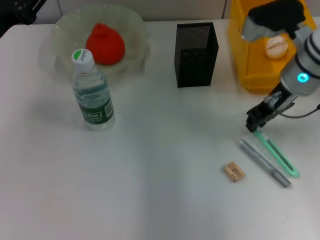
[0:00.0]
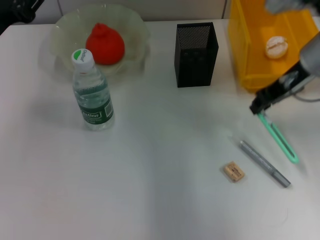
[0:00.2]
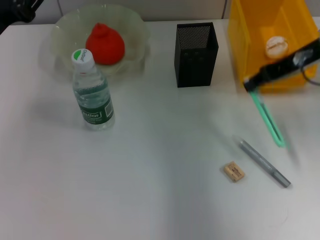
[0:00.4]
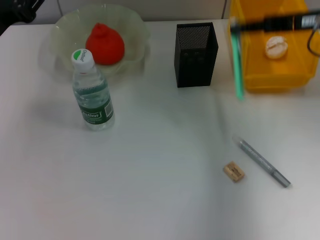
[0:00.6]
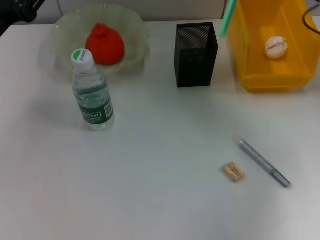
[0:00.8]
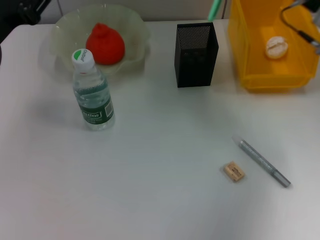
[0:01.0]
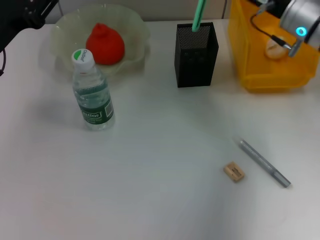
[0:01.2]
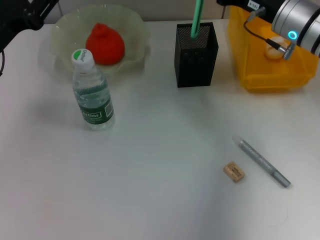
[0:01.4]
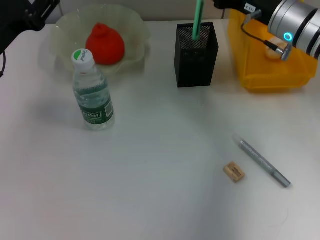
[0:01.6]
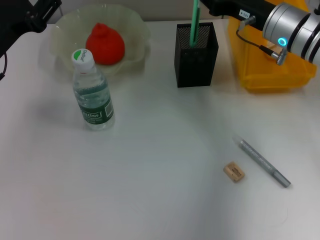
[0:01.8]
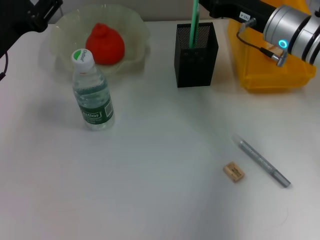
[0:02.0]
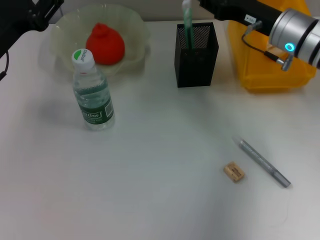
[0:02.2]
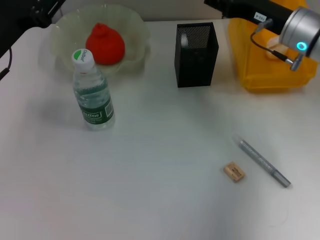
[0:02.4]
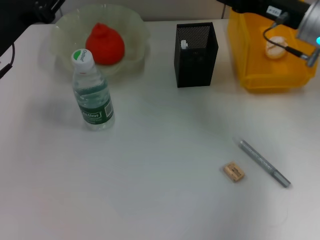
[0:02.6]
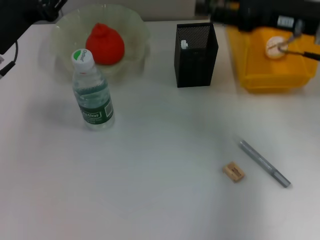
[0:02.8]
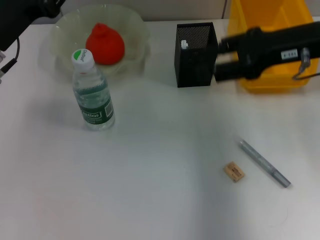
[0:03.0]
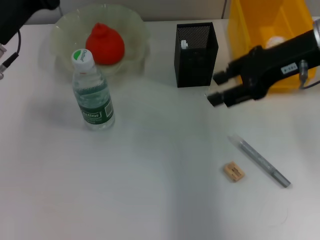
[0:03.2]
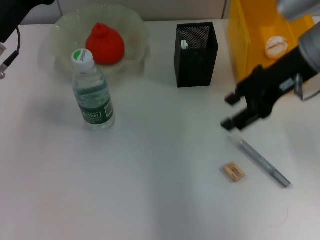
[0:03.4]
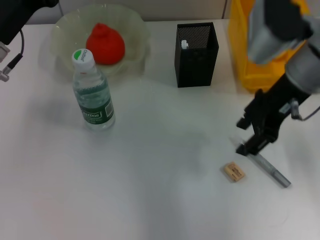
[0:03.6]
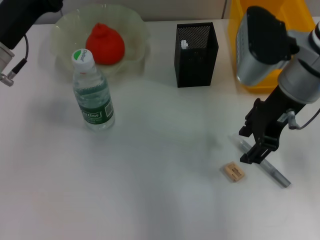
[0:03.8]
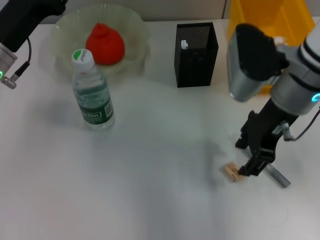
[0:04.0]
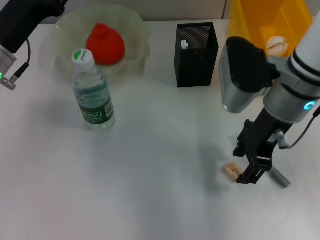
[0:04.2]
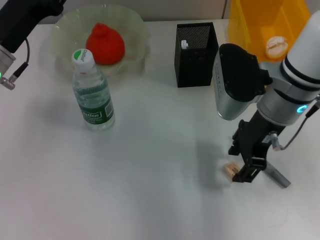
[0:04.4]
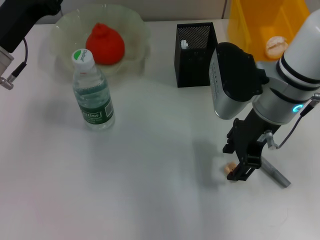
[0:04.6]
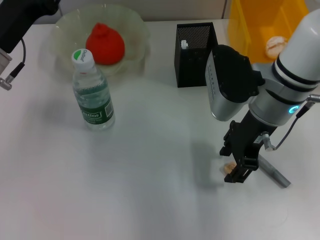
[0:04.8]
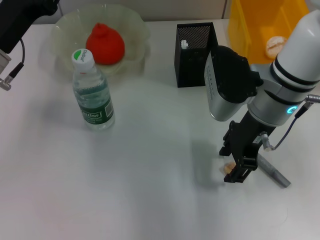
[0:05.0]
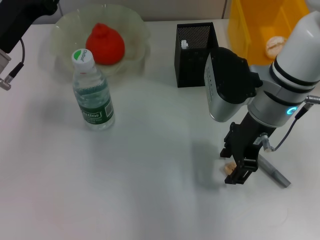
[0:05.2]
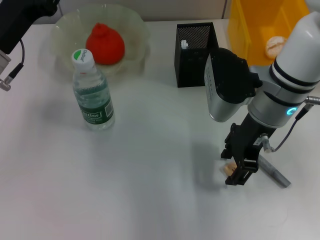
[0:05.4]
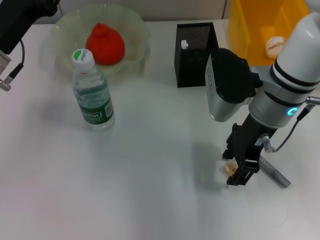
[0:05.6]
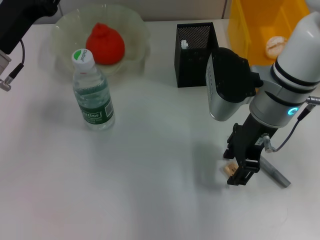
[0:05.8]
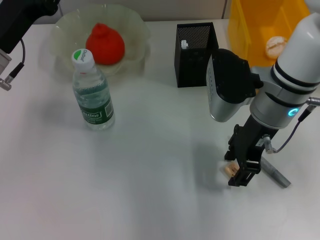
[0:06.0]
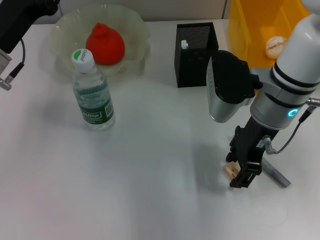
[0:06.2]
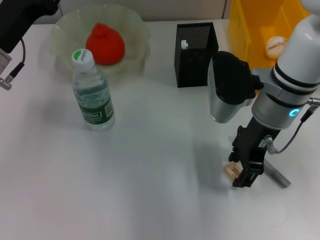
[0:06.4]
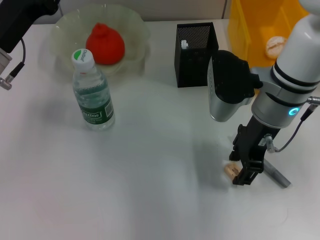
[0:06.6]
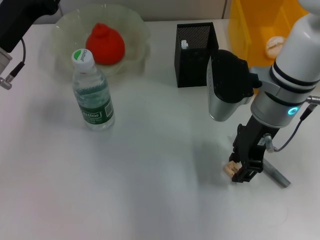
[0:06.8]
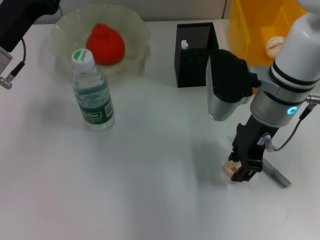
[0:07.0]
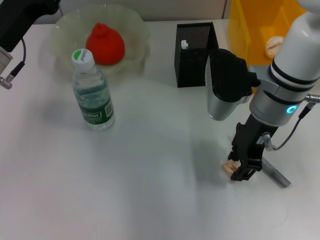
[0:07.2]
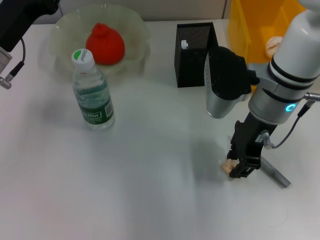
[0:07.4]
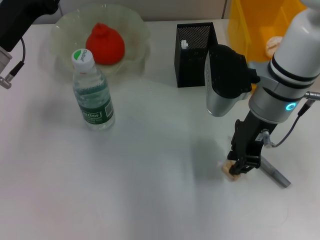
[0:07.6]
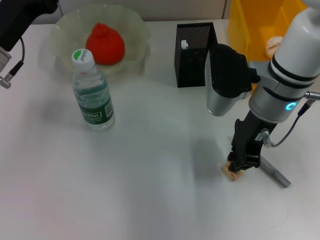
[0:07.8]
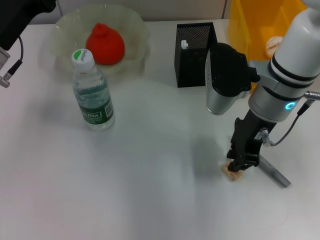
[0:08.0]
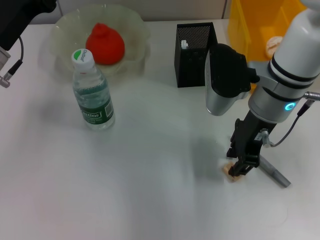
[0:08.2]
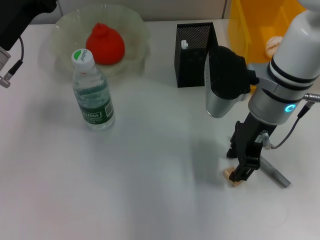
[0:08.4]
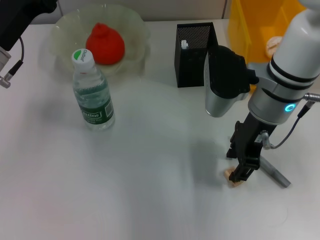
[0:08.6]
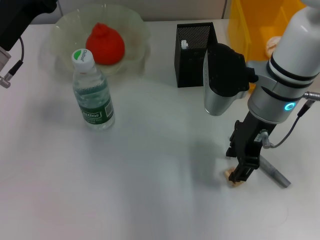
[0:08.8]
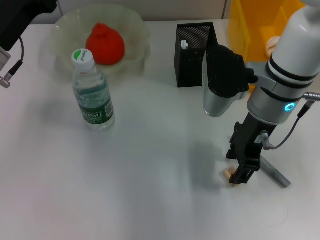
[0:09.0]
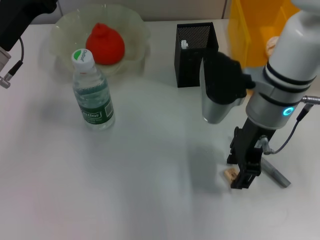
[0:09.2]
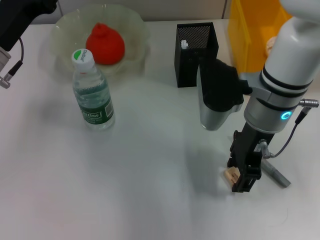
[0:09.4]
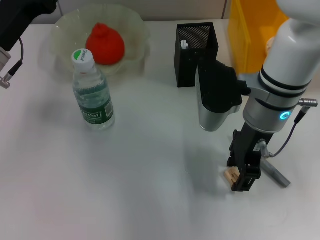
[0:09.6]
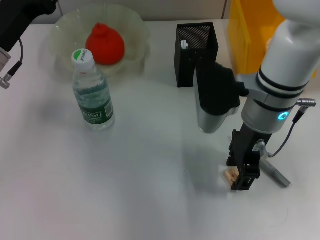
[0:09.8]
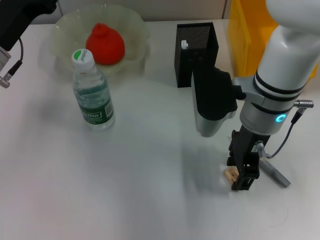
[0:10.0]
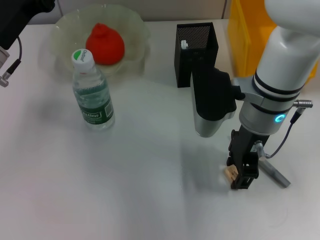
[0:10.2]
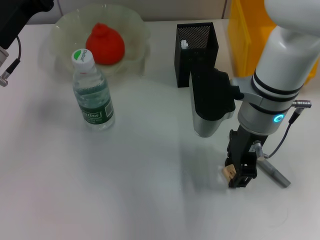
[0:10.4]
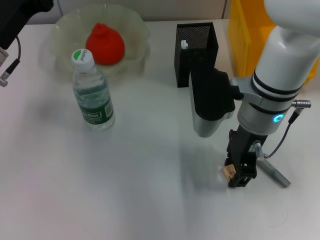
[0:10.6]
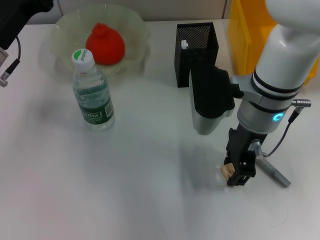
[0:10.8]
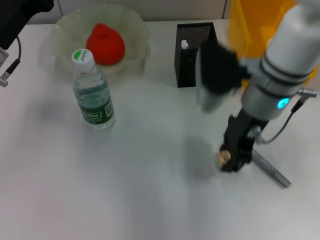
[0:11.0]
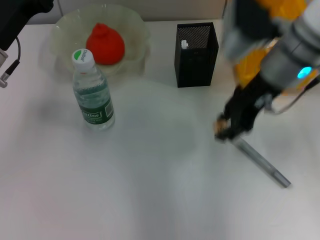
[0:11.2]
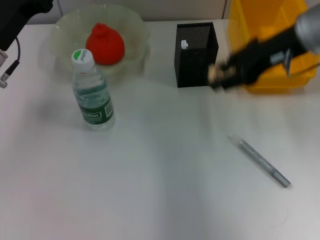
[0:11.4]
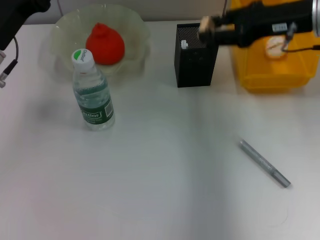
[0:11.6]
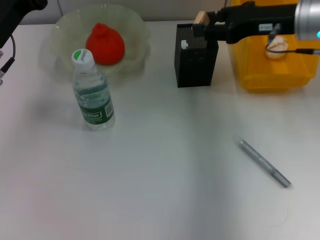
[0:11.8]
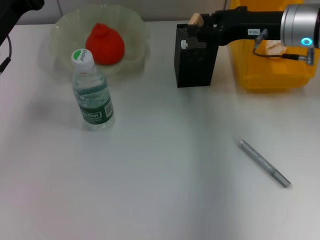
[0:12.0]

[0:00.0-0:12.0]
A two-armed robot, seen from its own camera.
Step, 0:00.0 to 0:02.2: Place the blue utility knife into the pen holder with the right hand.
Step, 0:02.4 to 0:10.6: Grab the eraser with the right hand.
0:00.0 to 0:01.6: The right gripper moves approximately 10 cm to the right and comes back.
0:01.6 to 0:03.0: The right gripper shifts roughly 10 cm upward and backward, and opens.
0:03.0 to 0:04.4: The right gripper is displaced to the left and downward by approximately 10 cm.
0:04.4 to 0:06.0: Both grippers stay about where they are.
0:06.0 to 0:07.6: Both grippers stay about where they are.
0:07.6 to 0:09.0: The right gripper closes and opens again.
0:09.0 to 0:10.4: The grippers make only small movements.
0:10.4 to 0:12.0: The right gripper shifts approximately 10 cm to the right and forward.

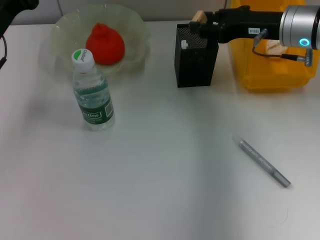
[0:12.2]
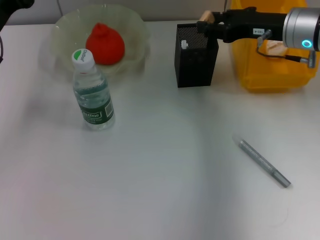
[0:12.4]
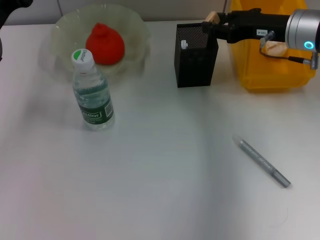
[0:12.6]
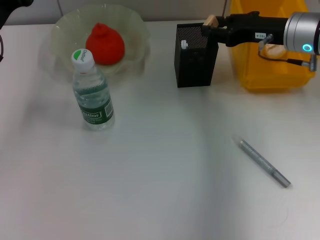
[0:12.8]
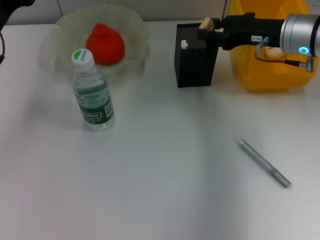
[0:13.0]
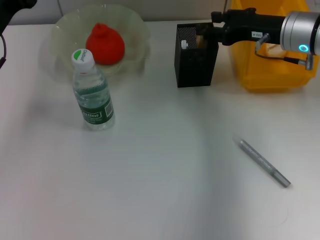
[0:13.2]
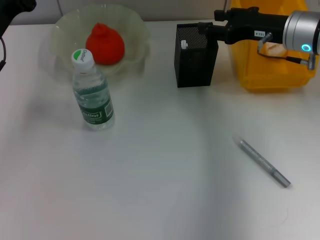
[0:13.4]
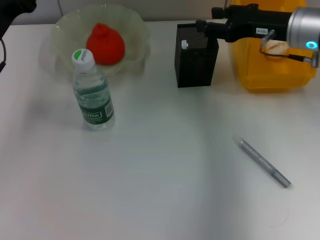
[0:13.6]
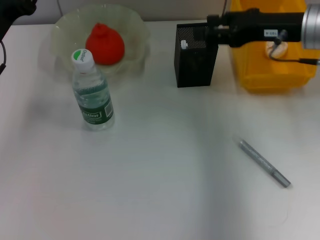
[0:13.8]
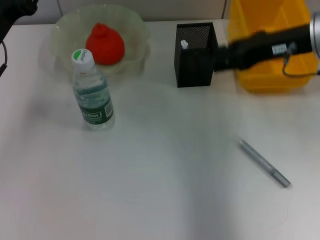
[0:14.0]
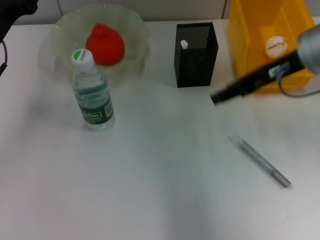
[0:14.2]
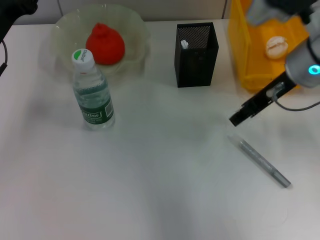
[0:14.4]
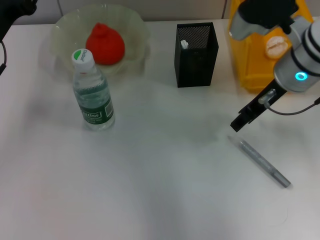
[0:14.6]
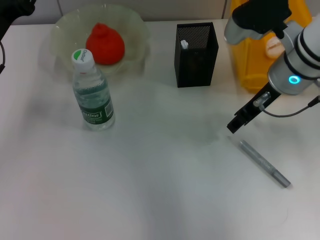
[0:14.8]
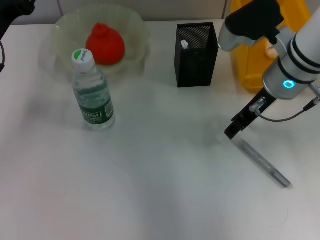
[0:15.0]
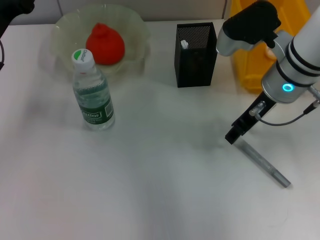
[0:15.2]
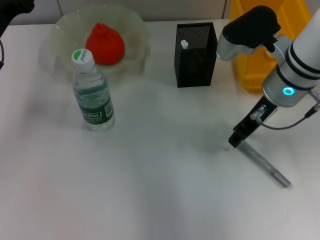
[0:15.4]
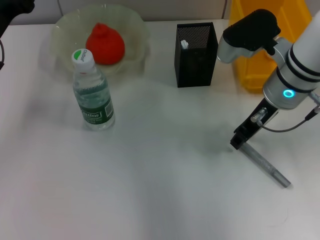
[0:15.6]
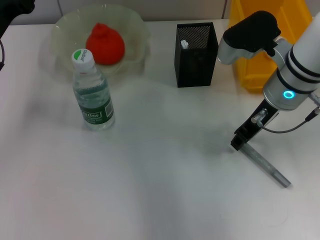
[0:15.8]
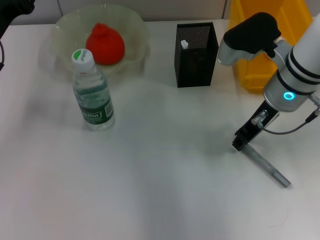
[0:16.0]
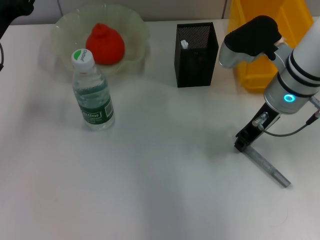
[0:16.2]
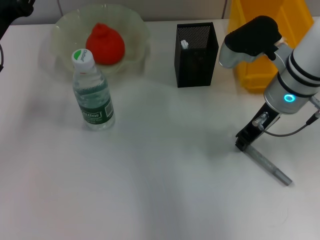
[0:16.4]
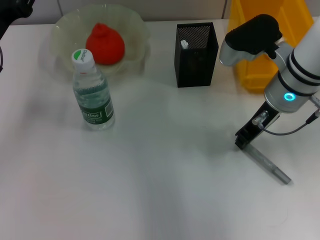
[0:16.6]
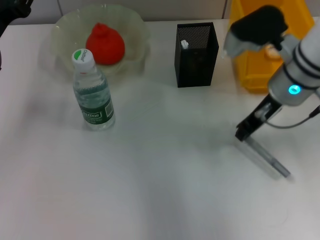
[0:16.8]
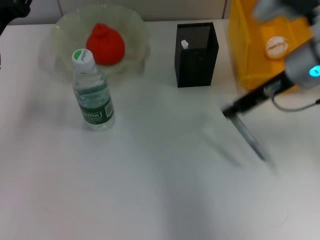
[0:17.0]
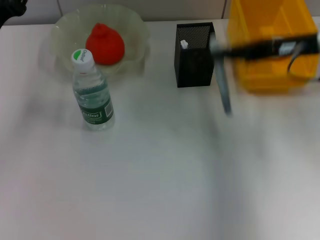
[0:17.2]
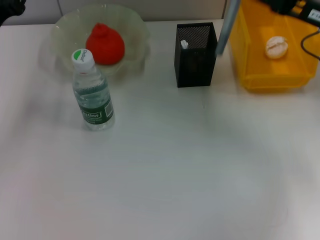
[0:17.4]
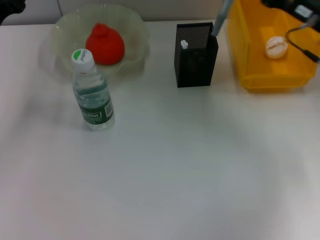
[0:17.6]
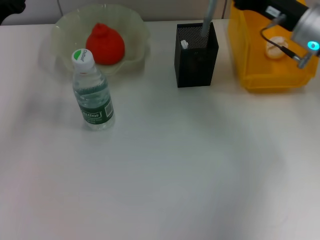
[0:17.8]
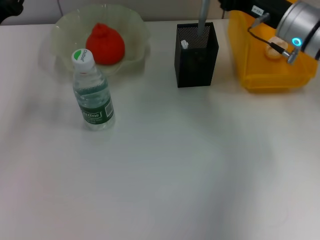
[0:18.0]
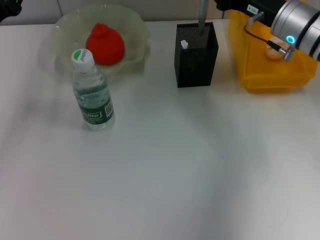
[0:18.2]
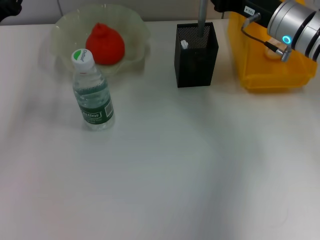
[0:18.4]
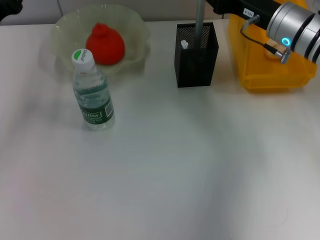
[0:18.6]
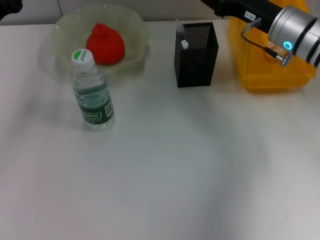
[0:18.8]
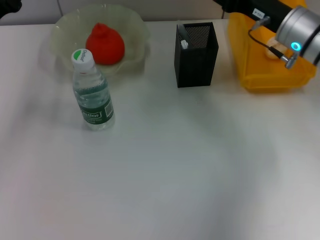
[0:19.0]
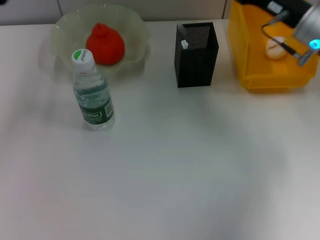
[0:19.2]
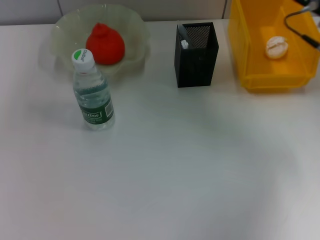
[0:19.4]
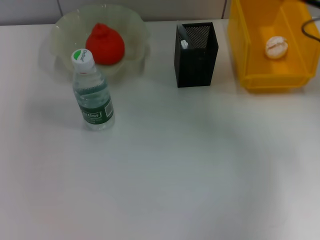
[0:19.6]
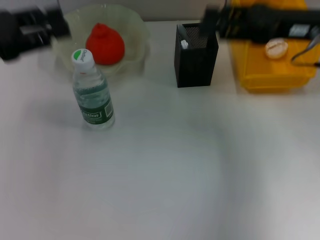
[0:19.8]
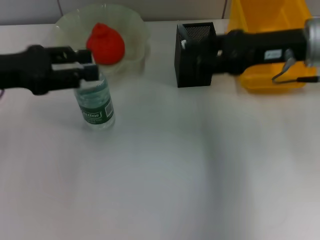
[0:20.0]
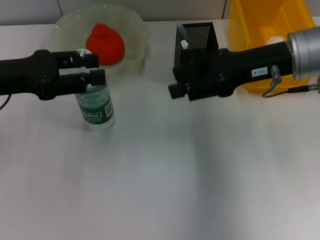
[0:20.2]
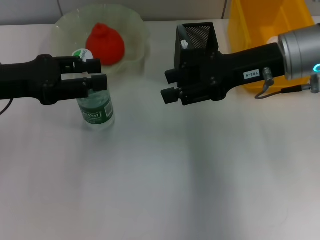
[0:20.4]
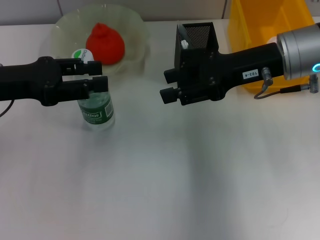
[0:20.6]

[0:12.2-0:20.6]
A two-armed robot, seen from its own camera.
Step, 0:13.4 to 0:16.6: Grab the gray glue with the right hand.
Step, 0:16.8 to 0:18.6: Place the gray glue into the pen holder with the right hand.
0:12.2 to 0:13.6: The grippers stay close to where they were, moving slightly.
0:13.6 to 0:15.0: The right gripper goes some 5 cm to the left.
0:15.0 to 0:16.4: The right gripper closes up.
0:16.4 to 0:17.8: The right gripper heads to the right, covering some 5 cm.
0:17.8 to 0:19.2: The right gripper opens.
0:19.2 to 0:20.6: The right gripper shifts by some 5 cm.

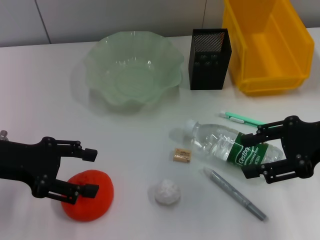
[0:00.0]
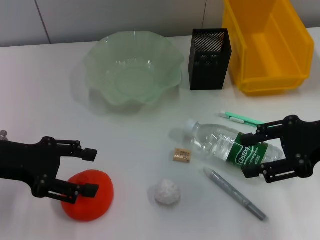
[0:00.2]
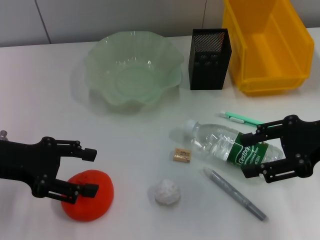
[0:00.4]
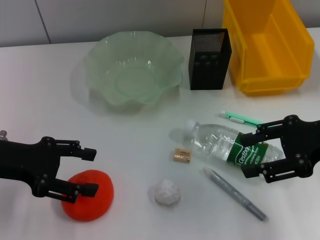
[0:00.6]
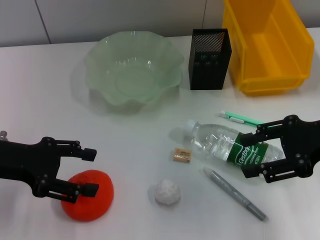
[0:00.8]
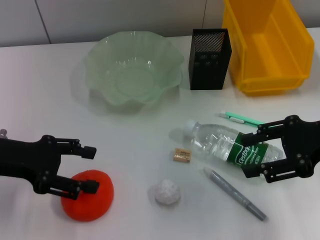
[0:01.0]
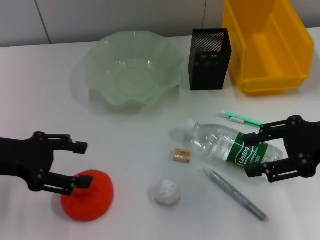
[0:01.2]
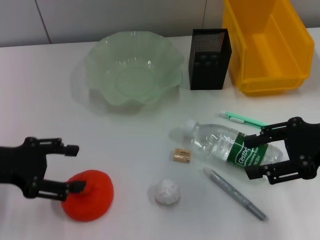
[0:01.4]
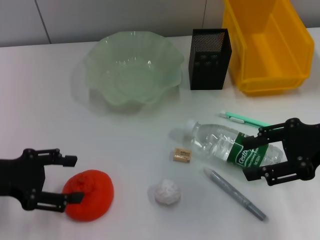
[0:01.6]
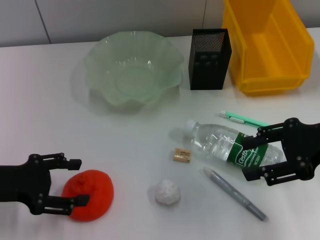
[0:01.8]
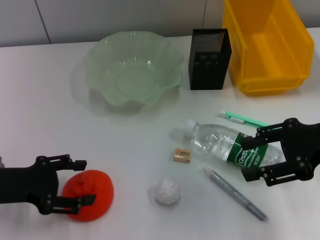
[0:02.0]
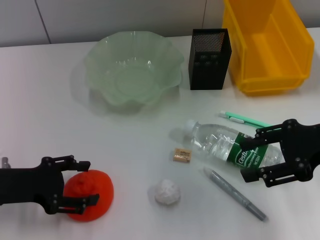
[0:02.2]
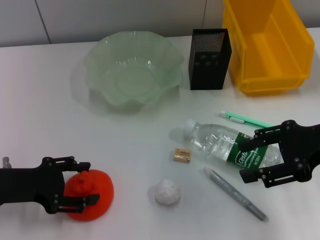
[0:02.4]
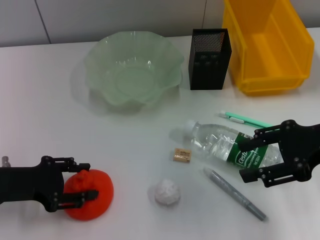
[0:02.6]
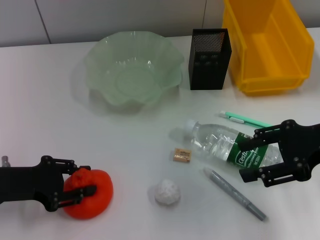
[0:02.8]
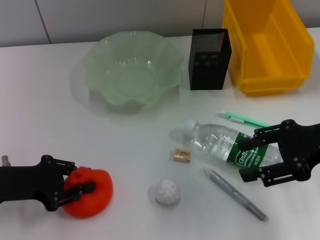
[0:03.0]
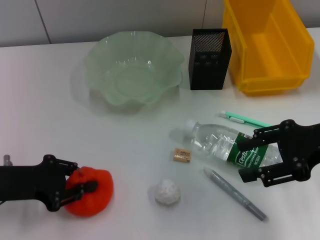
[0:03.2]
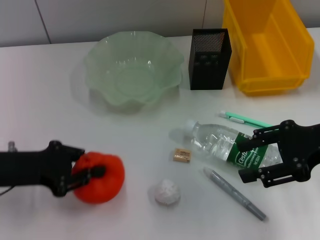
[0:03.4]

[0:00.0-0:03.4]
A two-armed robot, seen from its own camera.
Step, 0:00.0 to 0:03.0: Grab the orange with the left hand.
0:00.0 to 0:01.6: The grippers make only small movements.
0:01.6 to 0:03.4: The left gripper closes its fingers.
